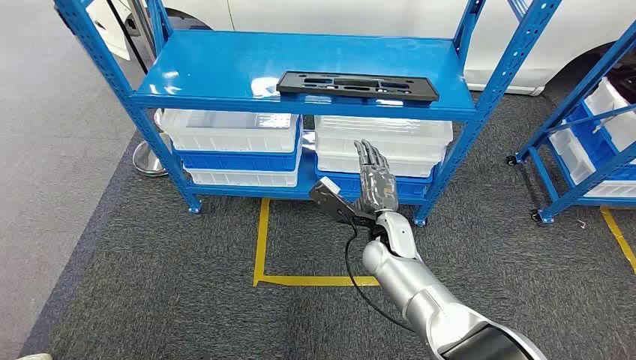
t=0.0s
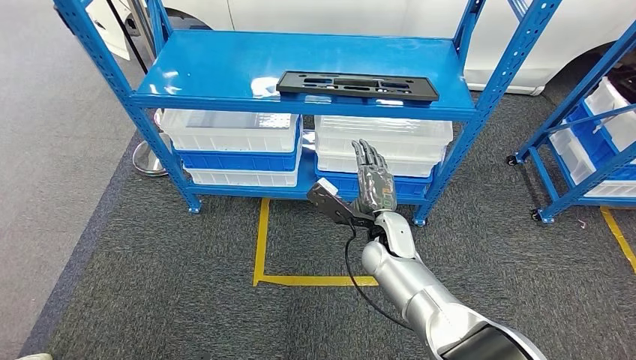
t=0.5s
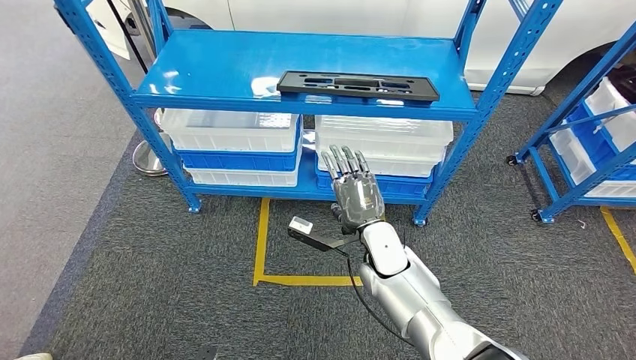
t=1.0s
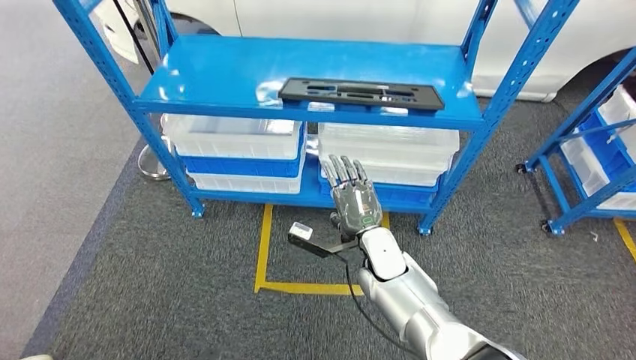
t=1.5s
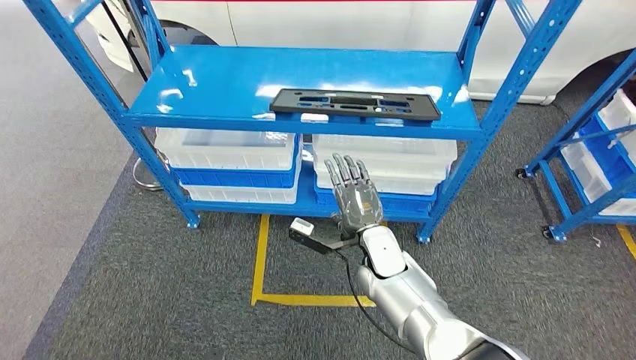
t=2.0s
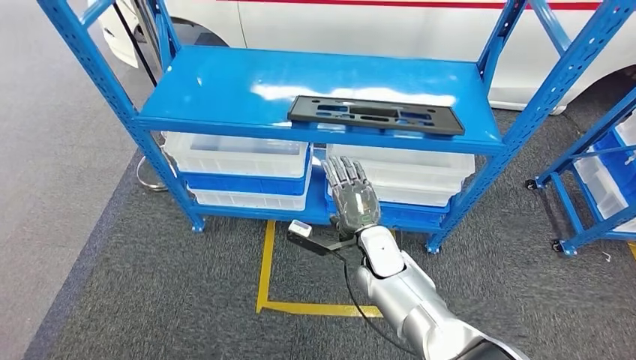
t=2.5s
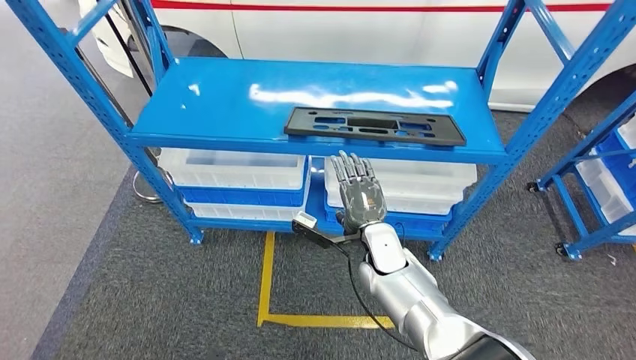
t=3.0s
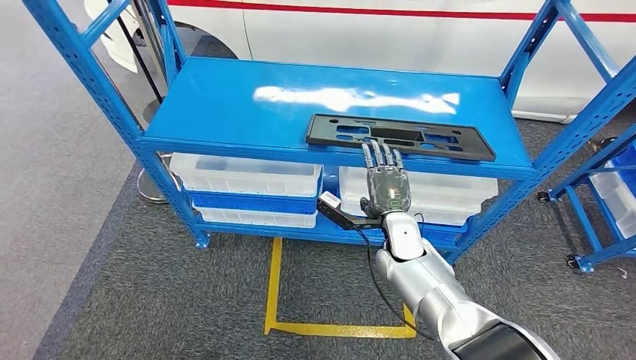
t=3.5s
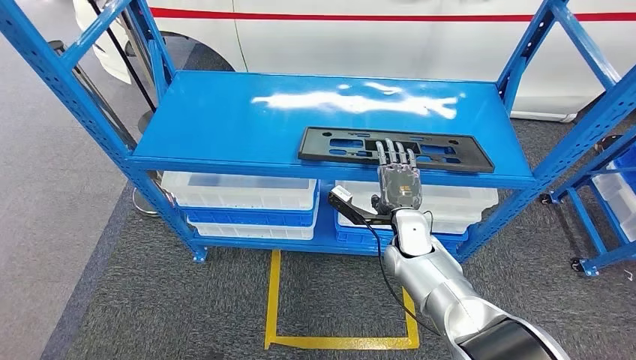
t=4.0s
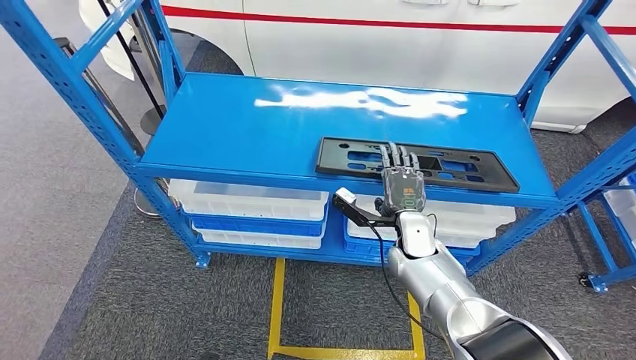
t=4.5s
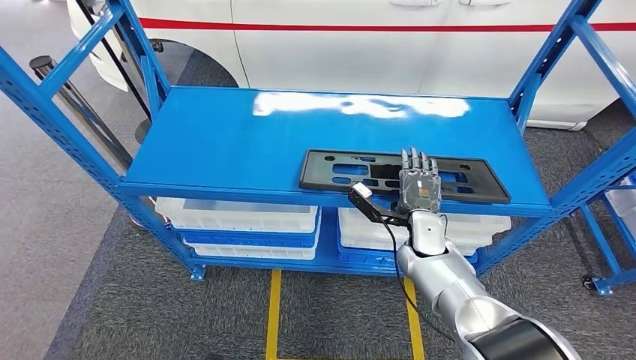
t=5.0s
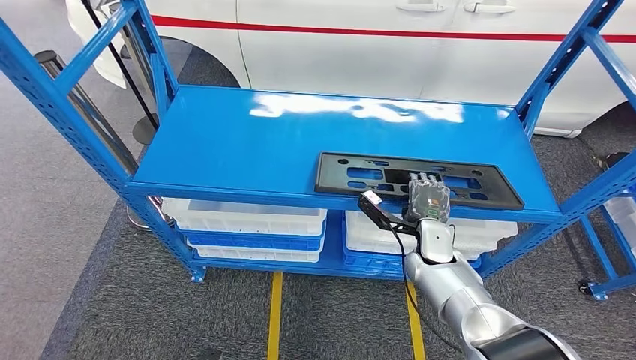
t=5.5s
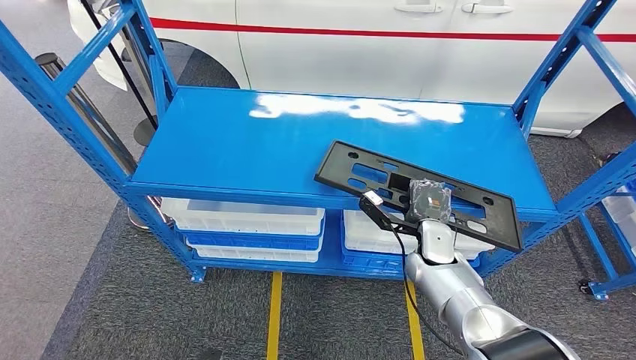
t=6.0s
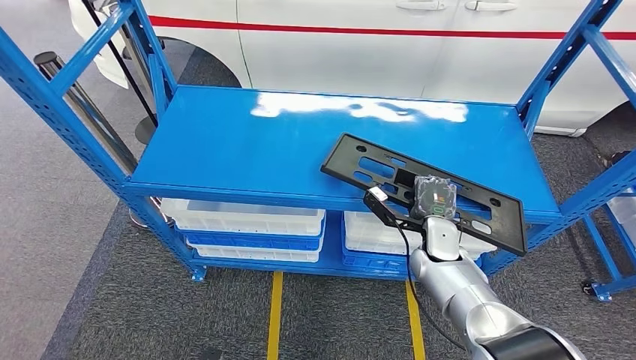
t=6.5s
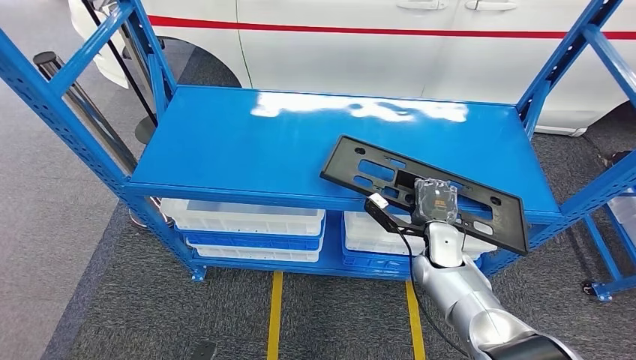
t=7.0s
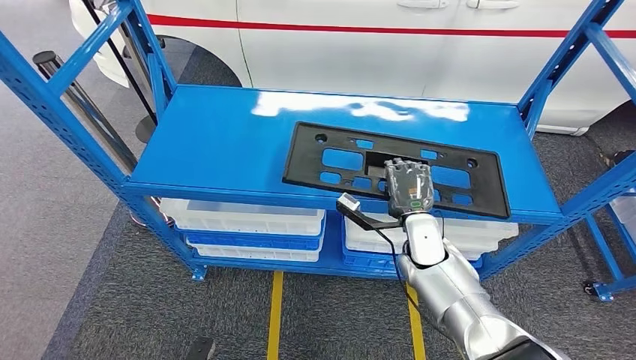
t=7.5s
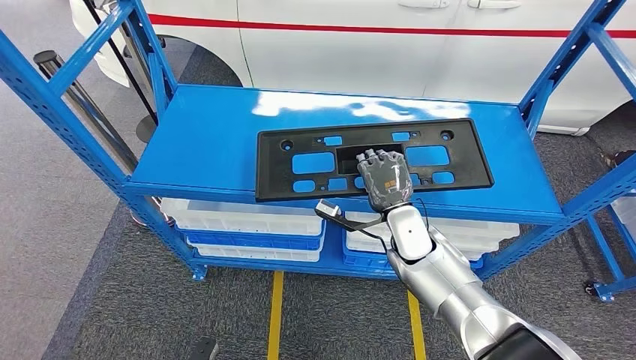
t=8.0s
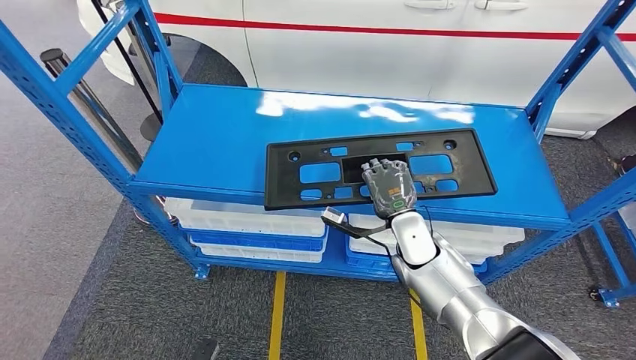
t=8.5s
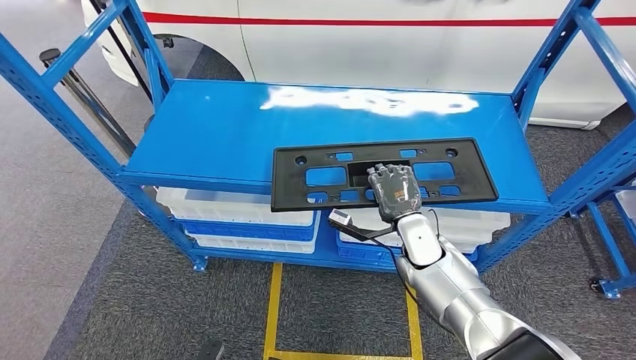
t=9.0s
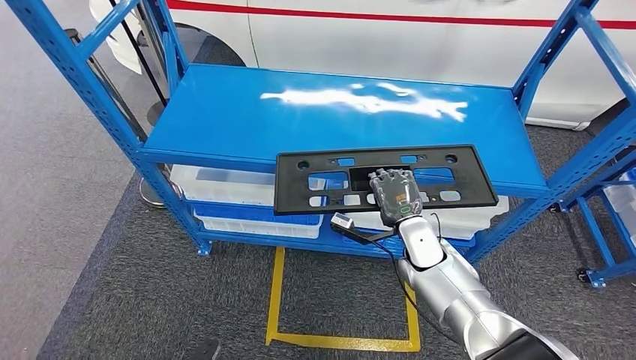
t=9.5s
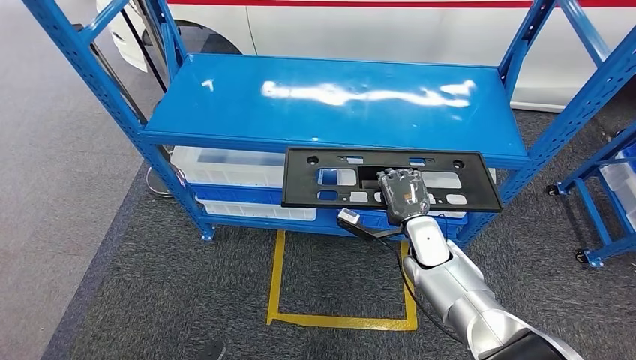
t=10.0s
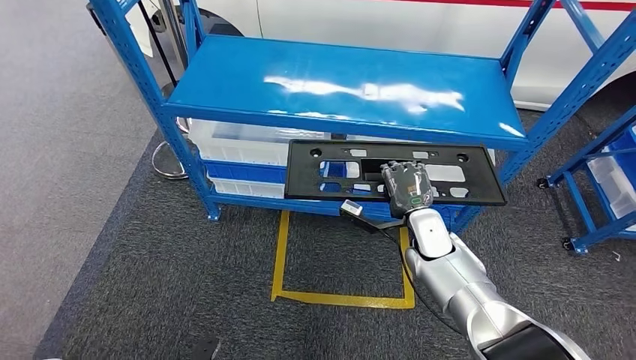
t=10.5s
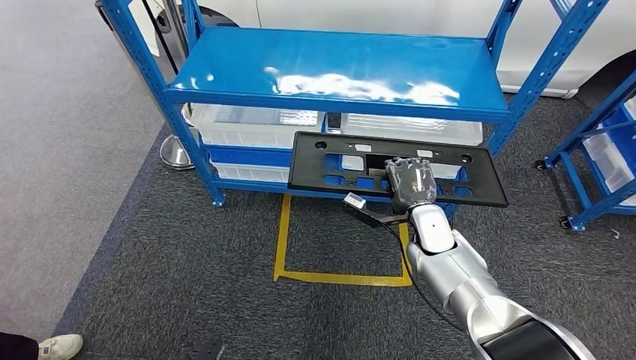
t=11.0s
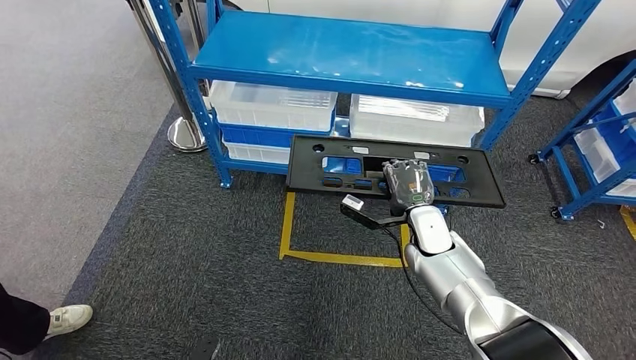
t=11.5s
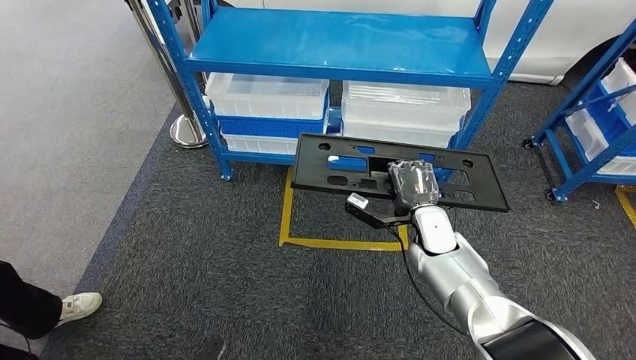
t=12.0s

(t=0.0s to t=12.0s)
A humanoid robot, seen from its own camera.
Step, t=0.0s - t=8.0s: Pick up the large material from the shelf.

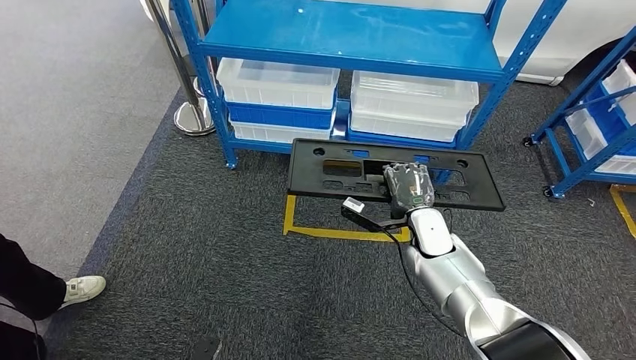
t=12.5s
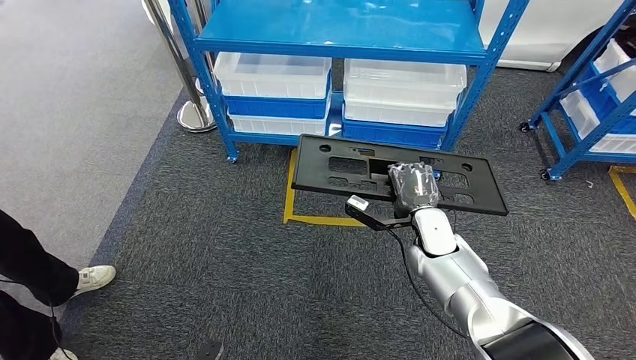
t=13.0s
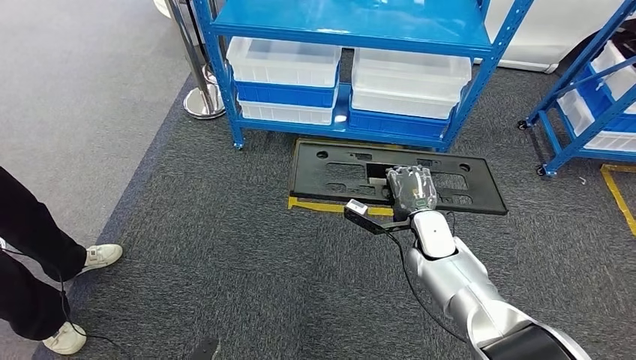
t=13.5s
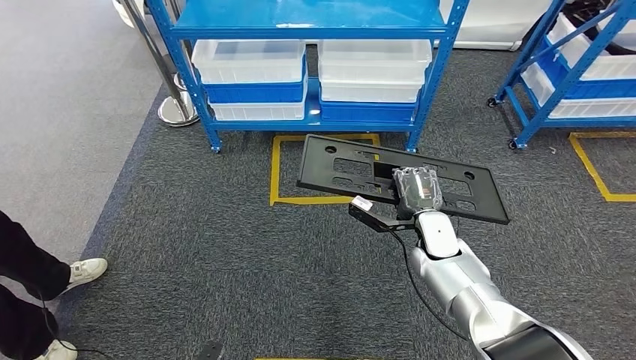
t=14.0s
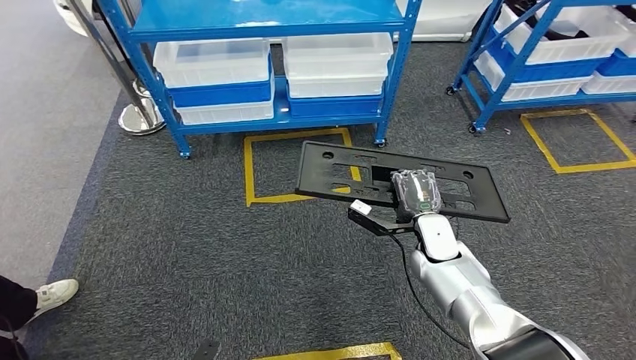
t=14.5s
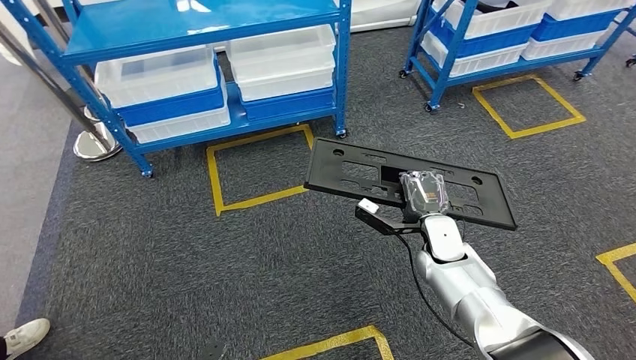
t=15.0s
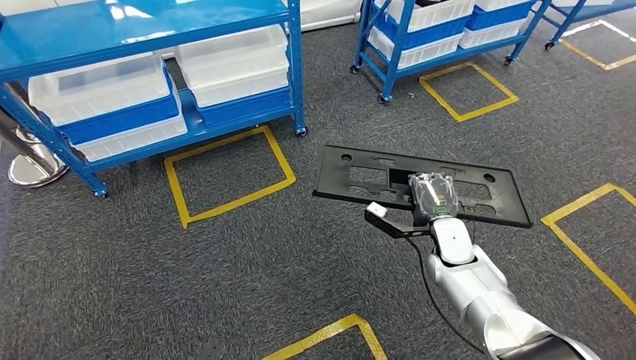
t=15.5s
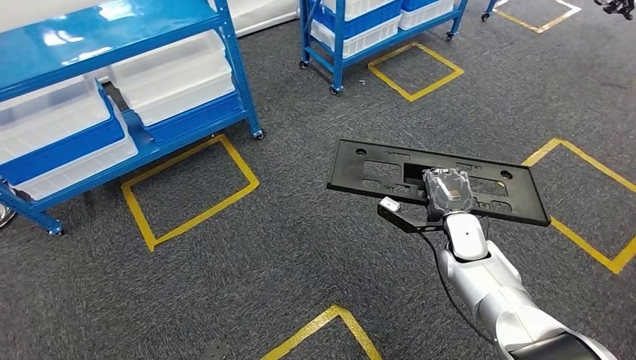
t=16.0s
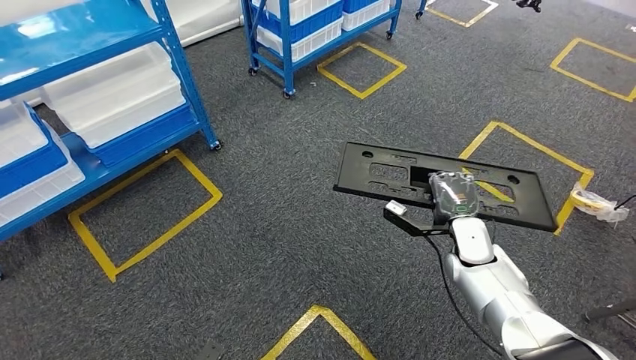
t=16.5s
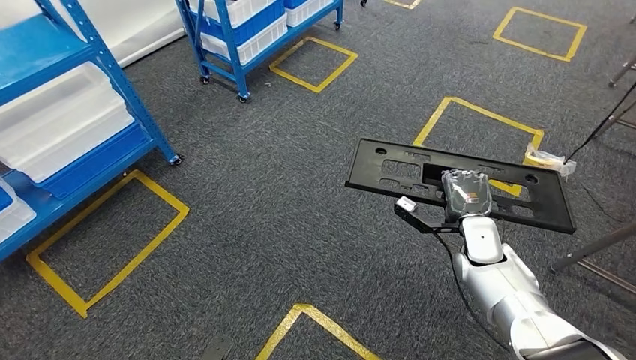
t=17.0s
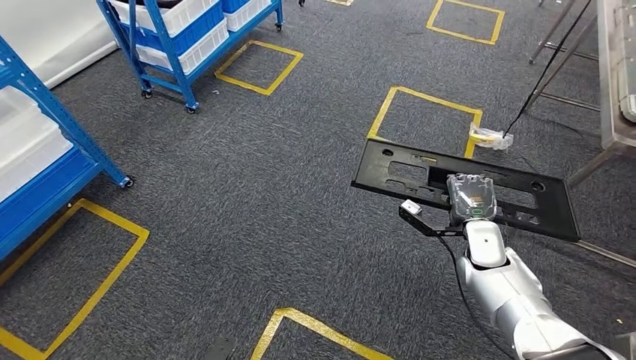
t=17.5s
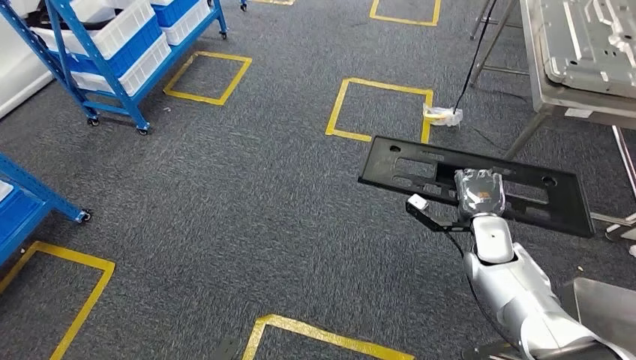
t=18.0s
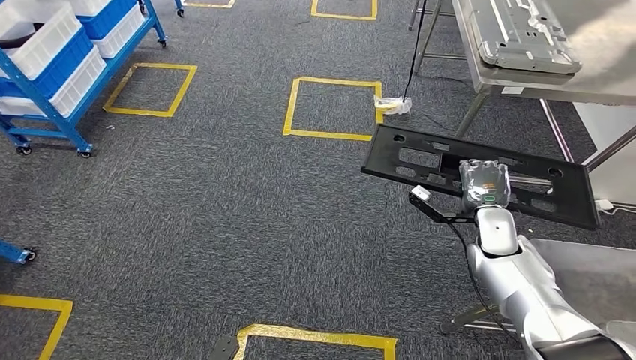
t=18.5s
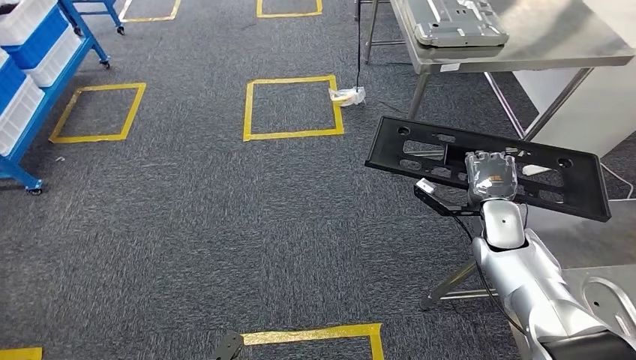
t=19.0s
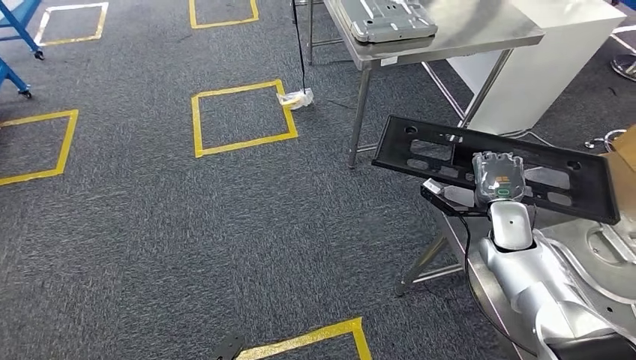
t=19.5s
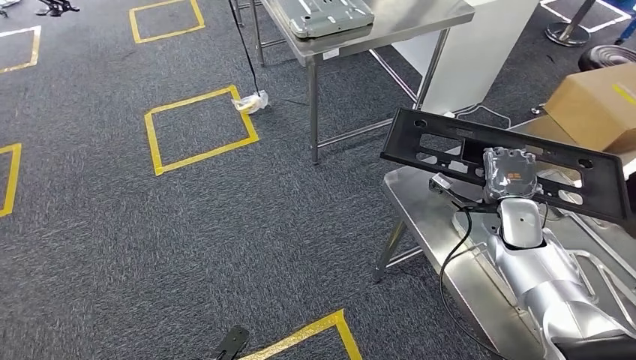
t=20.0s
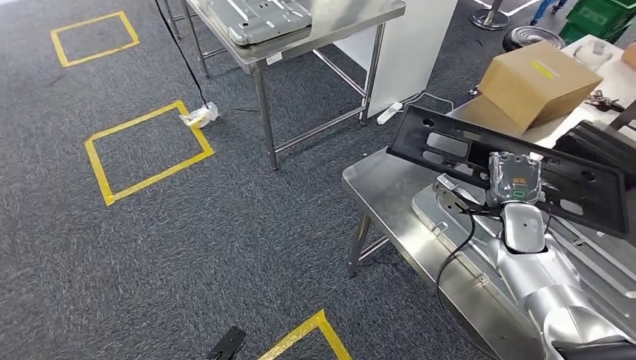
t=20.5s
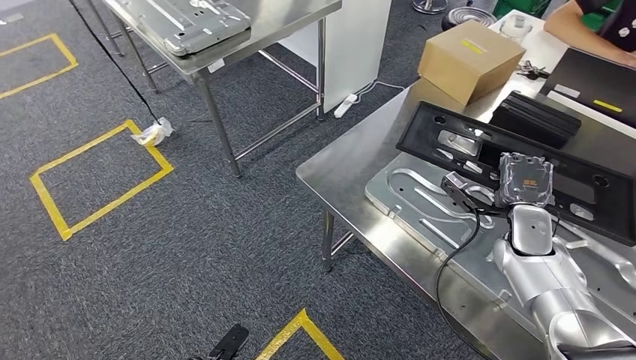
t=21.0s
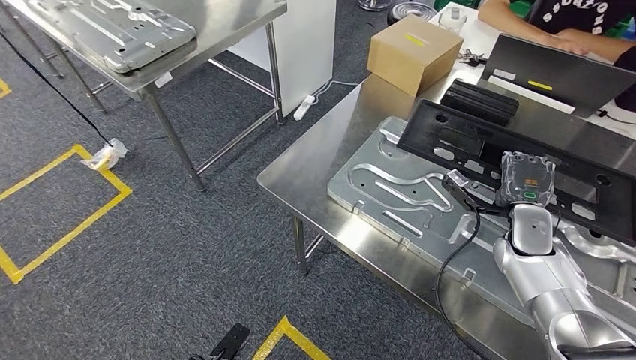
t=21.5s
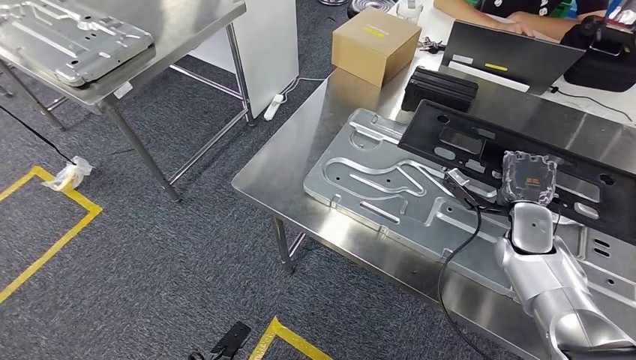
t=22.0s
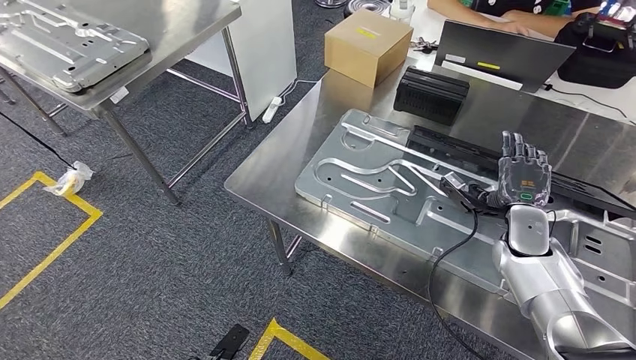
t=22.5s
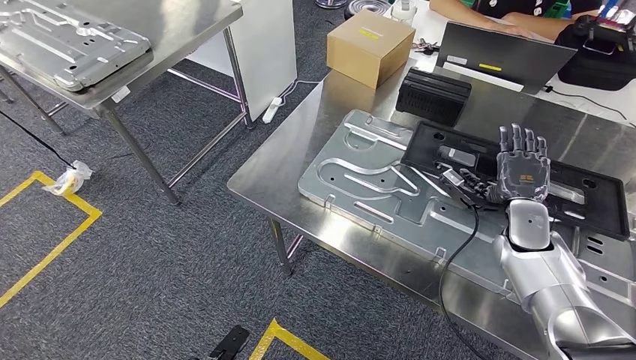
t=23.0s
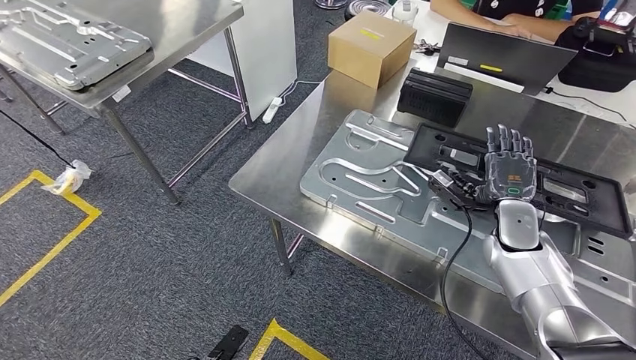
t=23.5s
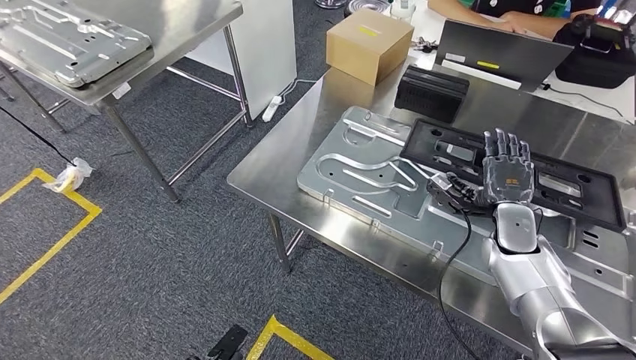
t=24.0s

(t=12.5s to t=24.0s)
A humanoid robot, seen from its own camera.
Step, t=12.5s - t=19.0s: Move the large material to the workbench.
Step, t=20.5s - t=23.0s: Insert the large material into the corresponding slot on the workbench.
